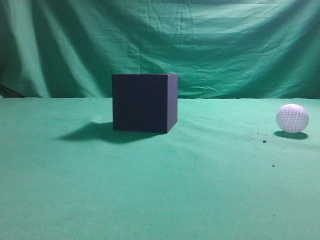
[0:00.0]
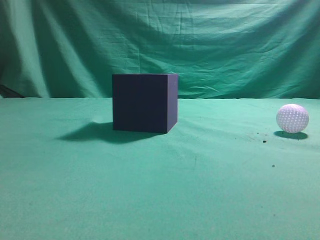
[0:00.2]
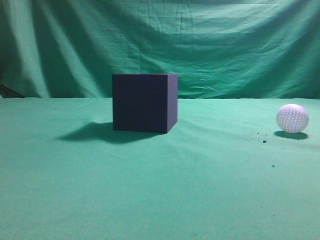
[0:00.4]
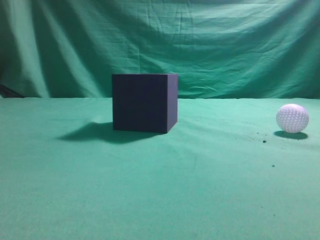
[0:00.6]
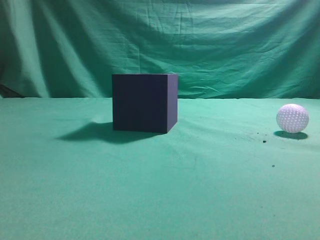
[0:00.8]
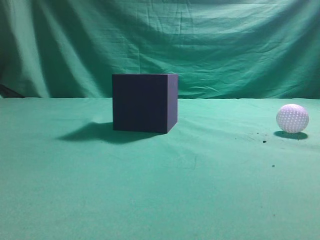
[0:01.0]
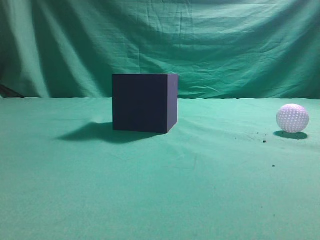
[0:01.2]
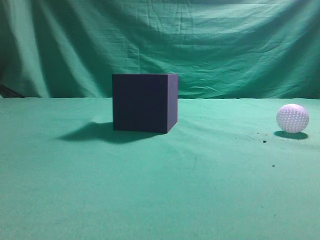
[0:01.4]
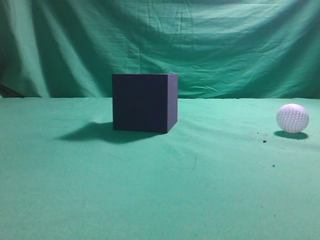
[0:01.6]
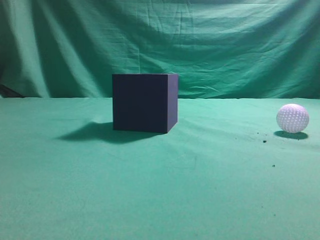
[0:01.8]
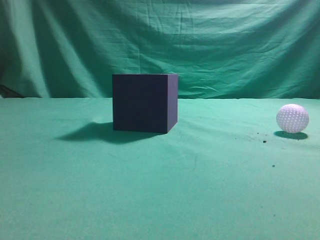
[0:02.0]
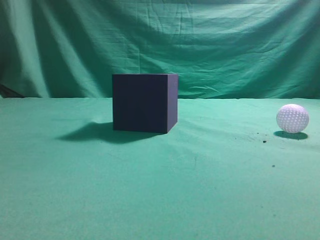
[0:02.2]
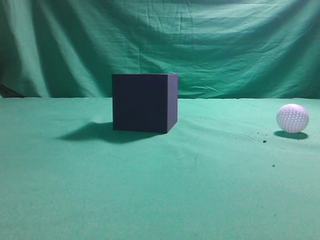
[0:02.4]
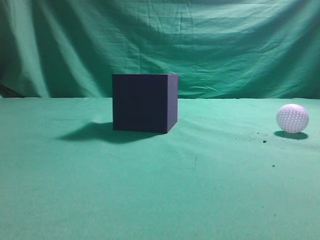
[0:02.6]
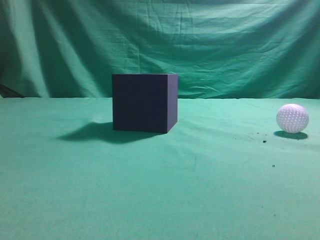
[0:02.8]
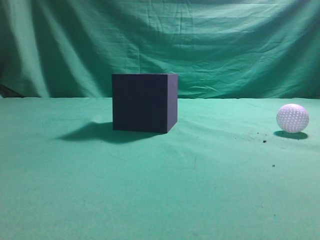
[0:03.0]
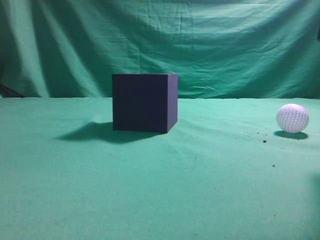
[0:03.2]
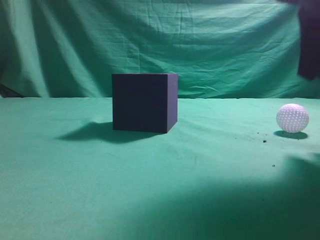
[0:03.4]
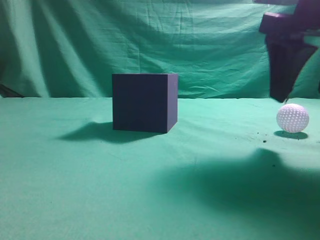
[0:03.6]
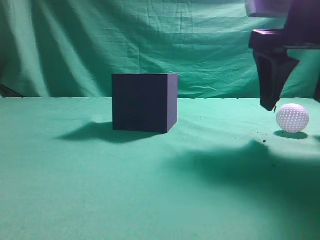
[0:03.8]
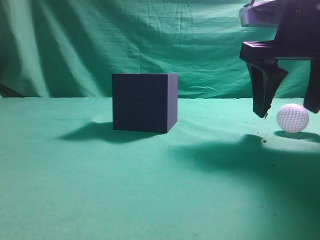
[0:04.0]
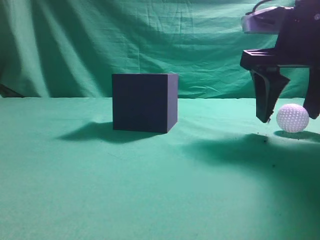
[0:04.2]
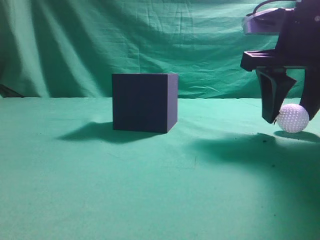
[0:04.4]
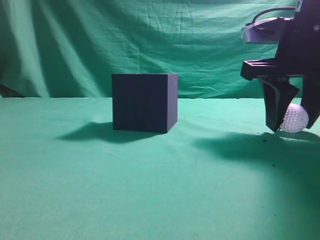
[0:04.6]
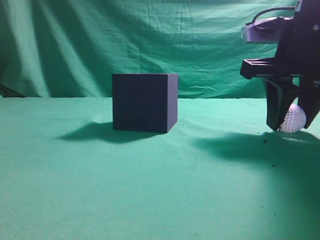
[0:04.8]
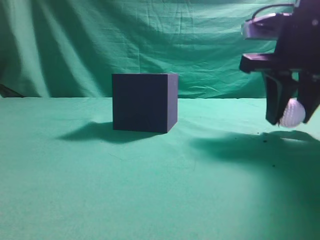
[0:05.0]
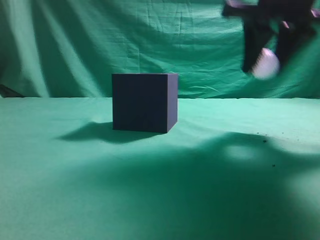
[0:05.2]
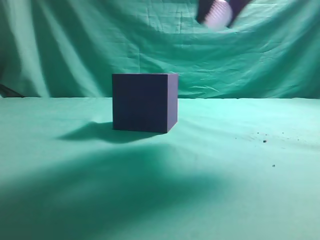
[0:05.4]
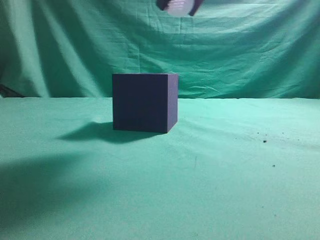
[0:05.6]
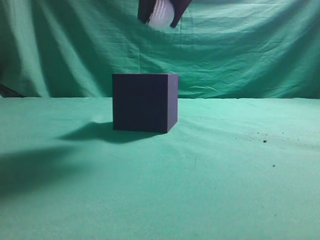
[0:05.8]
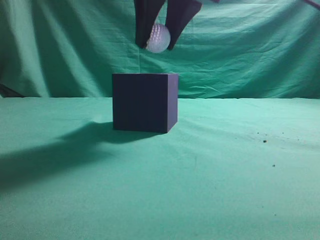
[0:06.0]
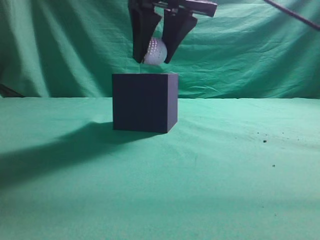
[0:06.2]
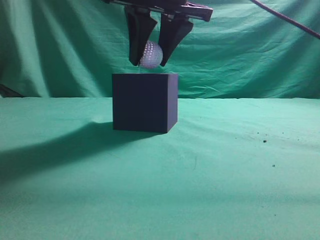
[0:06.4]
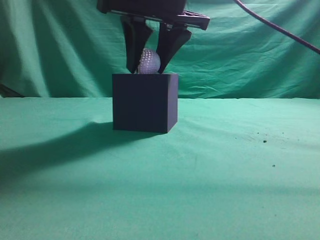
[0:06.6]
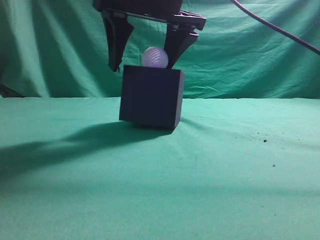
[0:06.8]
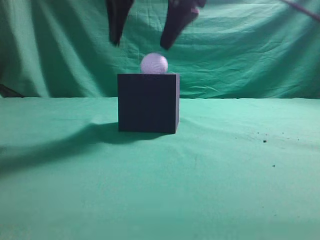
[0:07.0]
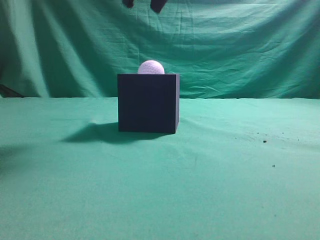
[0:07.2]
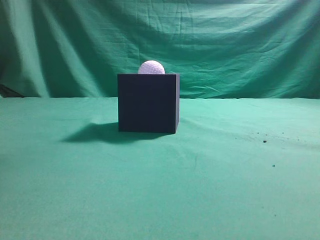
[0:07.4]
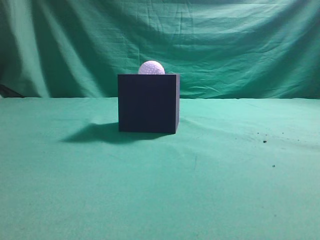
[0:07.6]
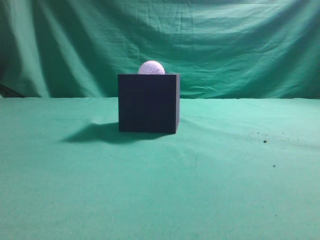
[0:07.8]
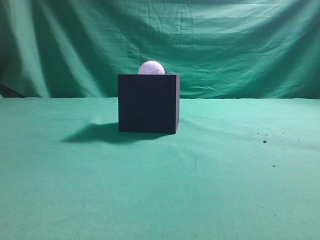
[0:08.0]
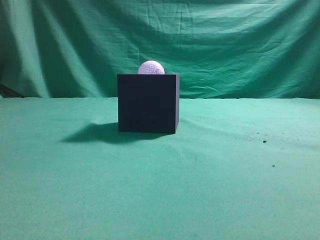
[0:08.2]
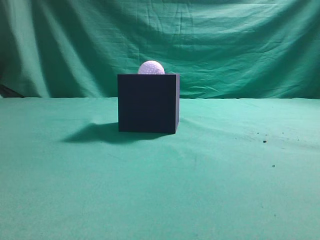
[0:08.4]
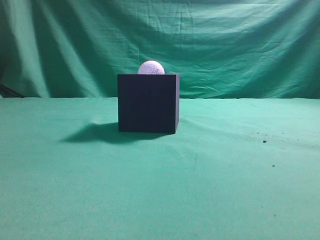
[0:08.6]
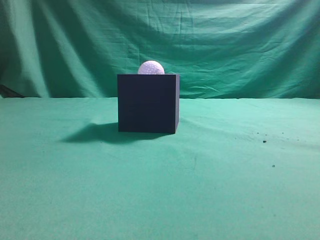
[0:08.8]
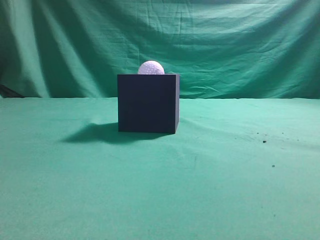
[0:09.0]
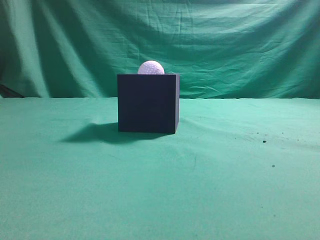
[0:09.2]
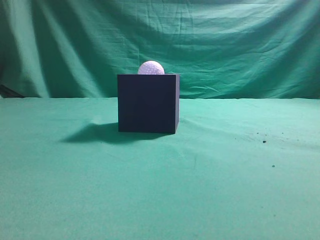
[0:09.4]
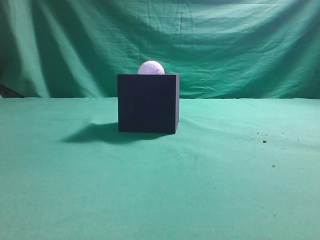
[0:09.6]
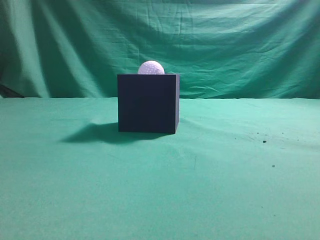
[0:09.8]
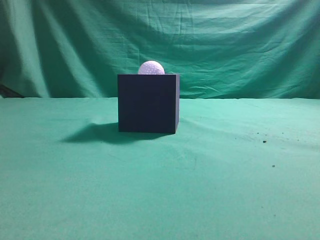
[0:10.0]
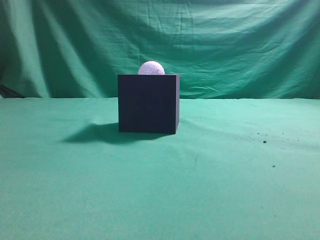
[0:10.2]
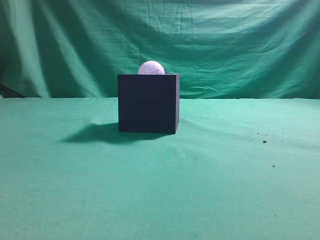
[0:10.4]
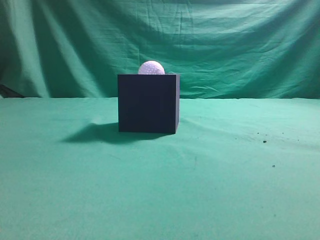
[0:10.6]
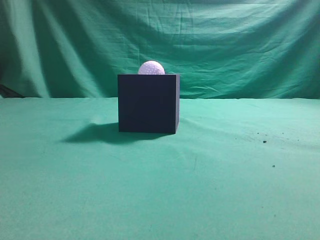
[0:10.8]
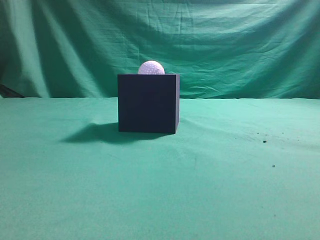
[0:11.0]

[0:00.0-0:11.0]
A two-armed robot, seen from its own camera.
Task of the whole recording: Pick up the ball and place it in the circular groove above the cube.
Step, 0:00.0 to 0:05.0: Grasp the sphere on the table.
Step, 0:05.2 to 0:06.8: Place the sphere into the sphere-shaped recess.
0:01.6 to 0:03.2: The right gripper is displaced forward and to the left by some 20 cm.
0:03.2 to 0:04.8: The right gripper goes roughly 15 cm downward and forward, and opens its fingers.
0:04.8 to 0:06.2: The right gripper goes about 20 cm to the left and upward.
0:06.2 to 0:07.8: The right gripper is displaced upward and to the right by about 15 cm, and closes.
